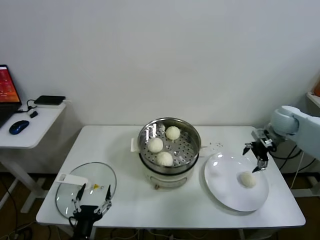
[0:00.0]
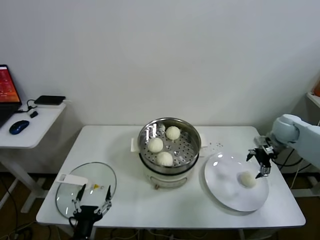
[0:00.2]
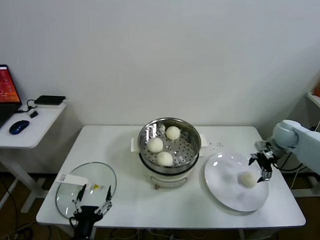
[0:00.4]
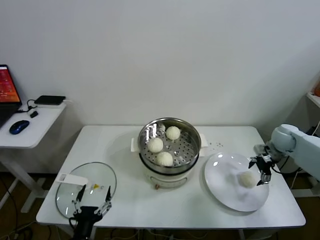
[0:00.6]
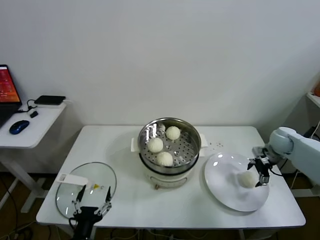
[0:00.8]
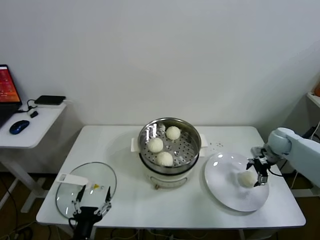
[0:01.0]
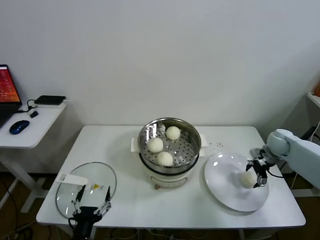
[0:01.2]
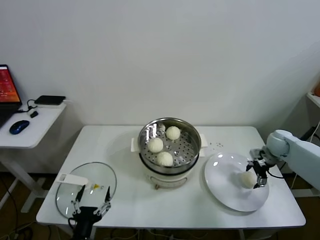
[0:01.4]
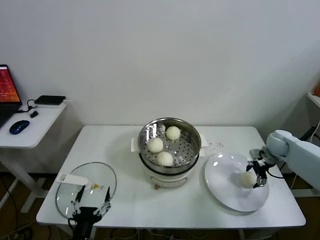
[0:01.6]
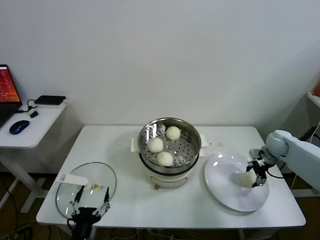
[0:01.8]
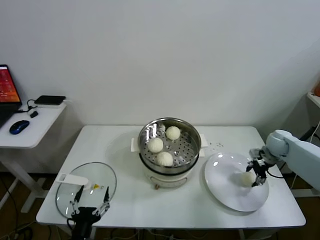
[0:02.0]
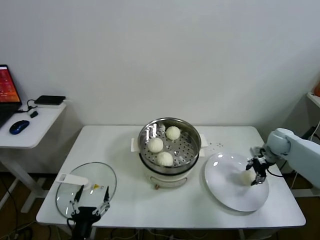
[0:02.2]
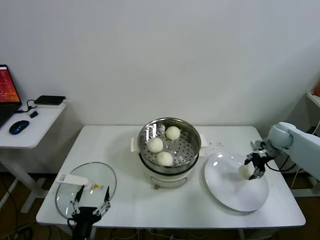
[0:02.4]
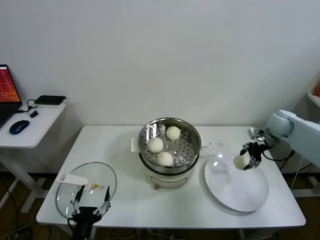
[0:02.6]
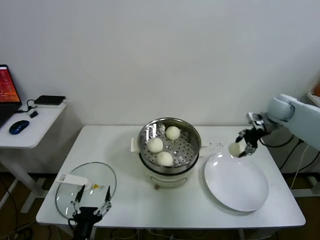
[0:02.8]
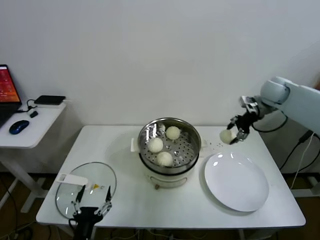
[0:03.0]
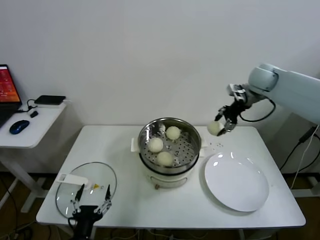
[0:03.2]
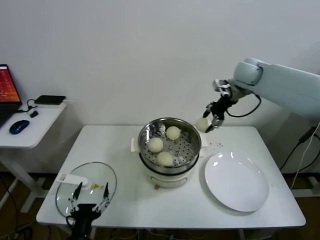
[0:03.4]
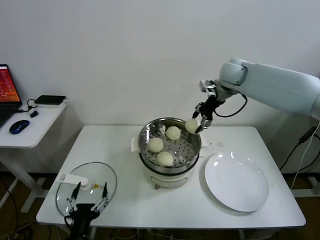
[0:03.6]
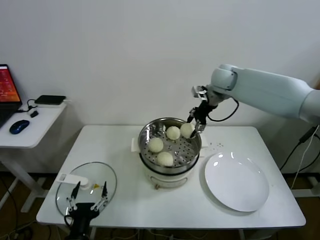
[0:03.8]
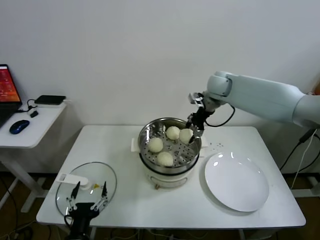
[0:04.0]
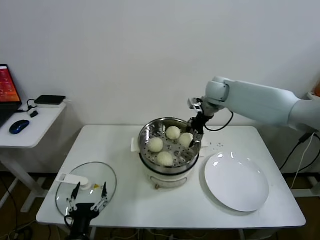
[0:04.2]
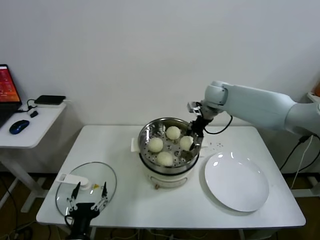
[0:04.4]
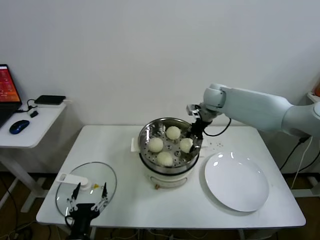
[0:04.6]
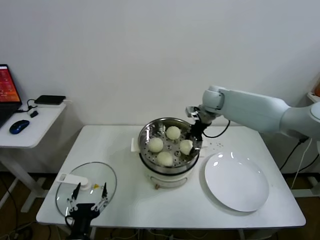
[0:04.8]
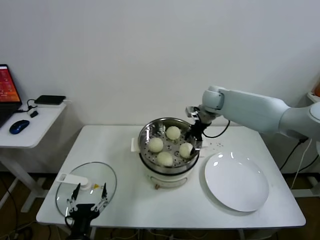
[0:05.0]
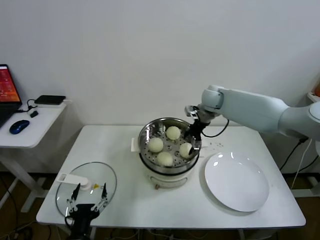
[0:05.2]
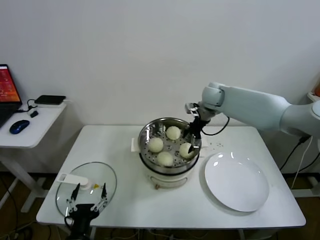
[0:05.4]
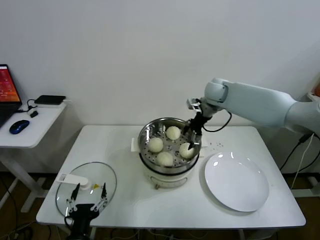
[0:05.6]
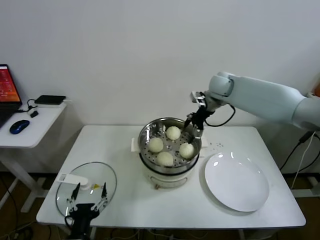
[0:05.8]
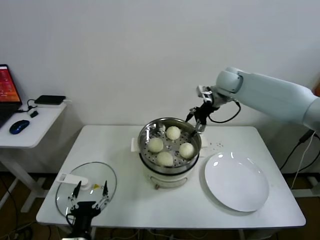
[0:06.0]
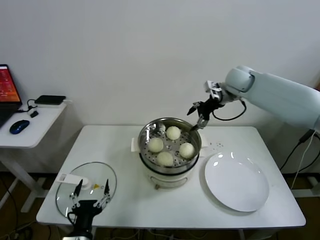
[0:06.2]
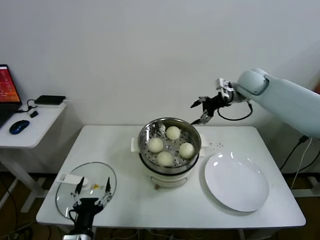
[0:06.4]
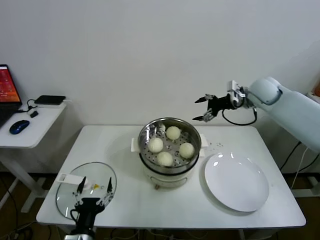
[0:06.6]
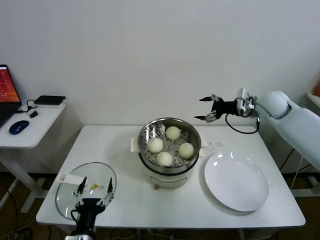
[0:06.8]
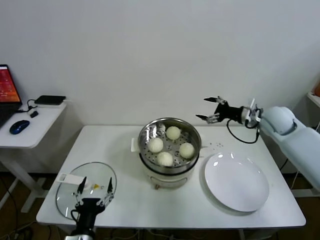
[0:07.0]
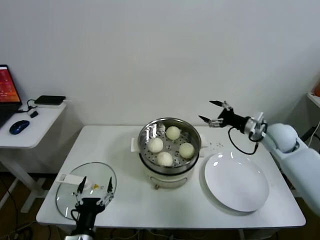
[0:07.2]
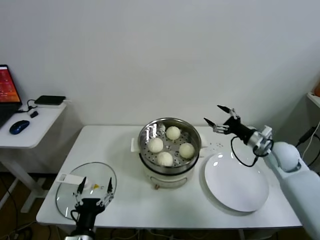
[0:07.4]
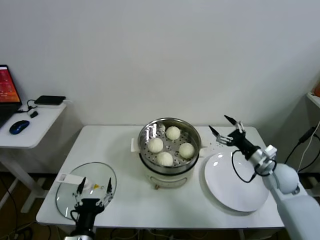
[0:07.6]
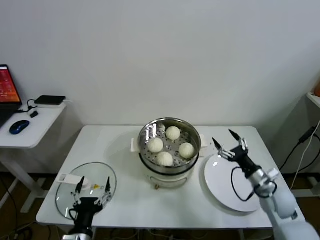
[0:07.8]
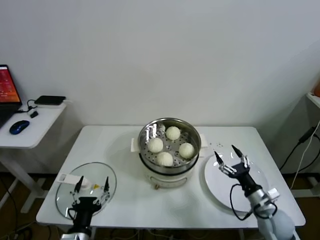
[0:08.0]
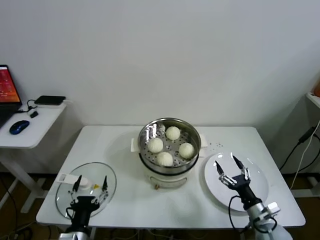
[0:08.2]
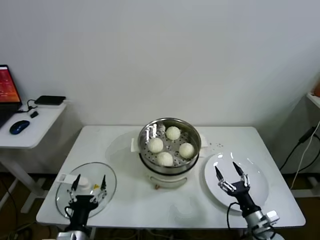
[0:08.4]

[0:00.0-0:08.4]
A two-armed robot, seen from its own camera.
Task of the whole recording: take steamed baozi put them in steamer.
Step, 0:00.0 to 0:02.0: Grasp the baozi in the plate with right gripper.
Step, 0:02.2 to 0:05.2: Place the baozi on the steamer with right gripper.
0:00.0 to 0:01.4: The right gripper shifts approximately 10 cm downward.
0:01.4 to 0:02.8: The right gripper goes about 10 cm upward, and closes.
0:02.8 to 0:04.2: The right gripper goes some 20 cm to the left.
0:04.2 to 0:05.6: The right gripper opens its fingers.
0:05.6 to 0:07.0: The right gripper is displaced to the right and backward by some 20 cm.
0:07.0 to 0:08.4: The right gripper travels backward and downward by approximately 40 cm.
